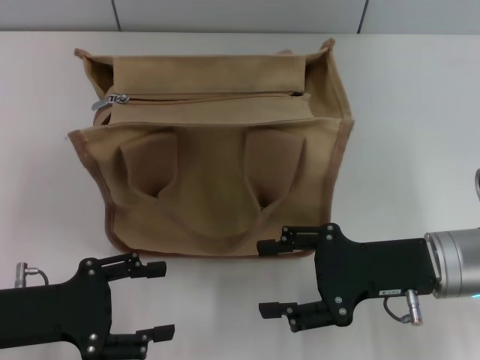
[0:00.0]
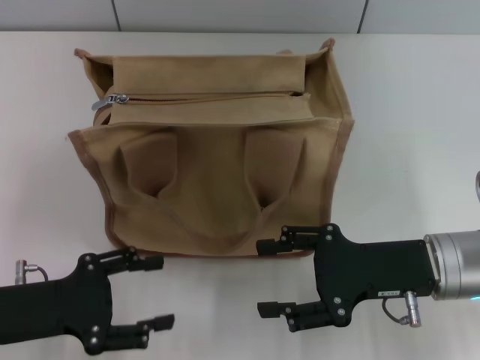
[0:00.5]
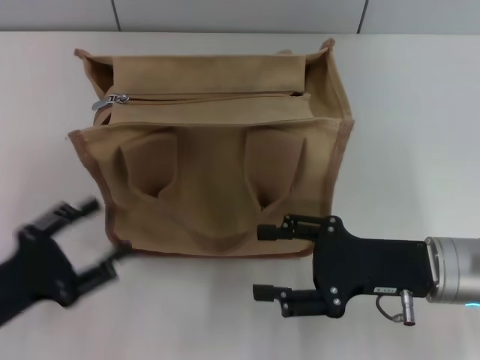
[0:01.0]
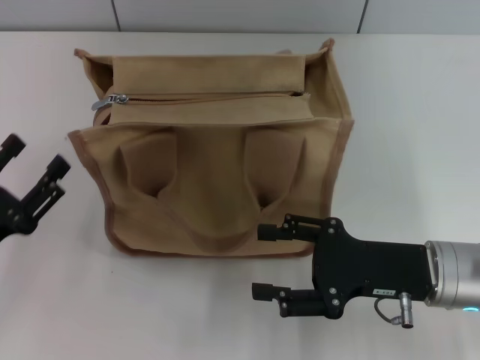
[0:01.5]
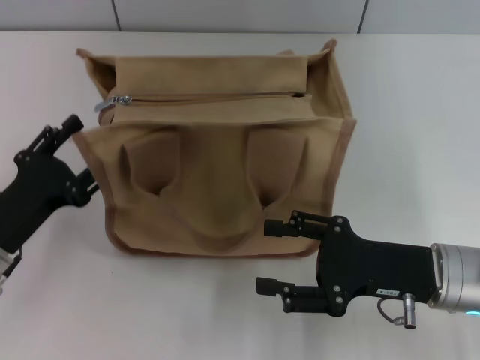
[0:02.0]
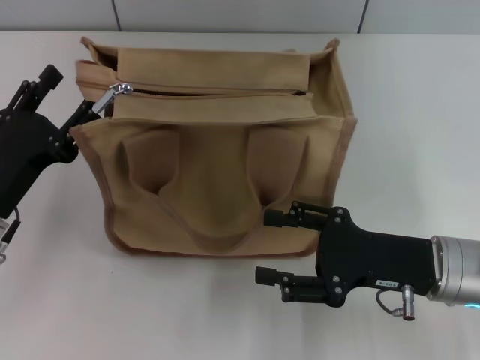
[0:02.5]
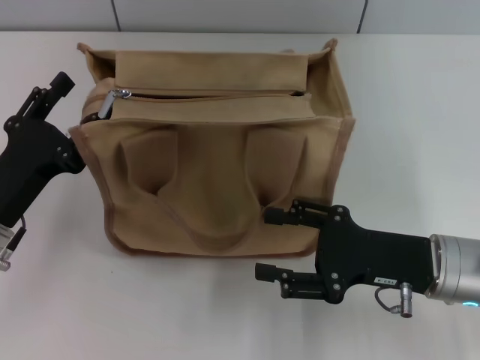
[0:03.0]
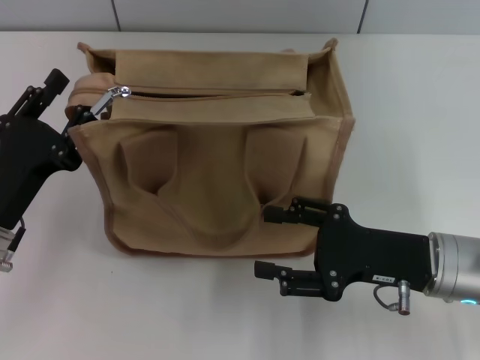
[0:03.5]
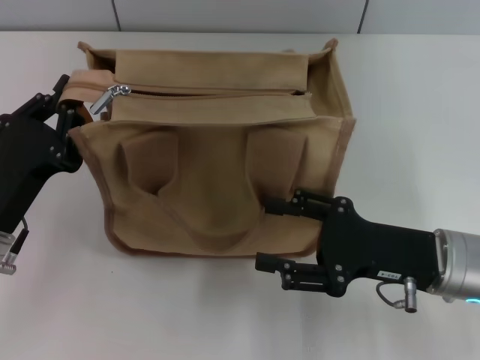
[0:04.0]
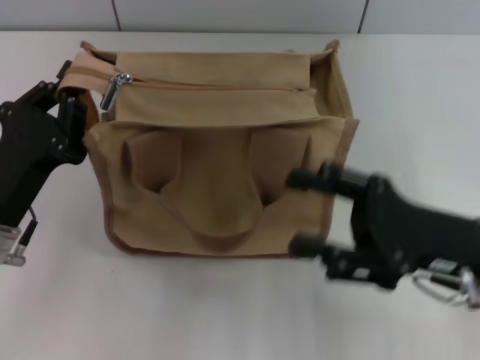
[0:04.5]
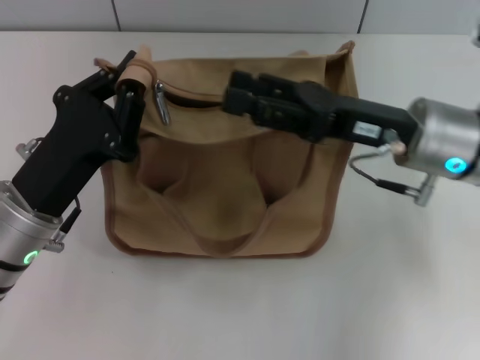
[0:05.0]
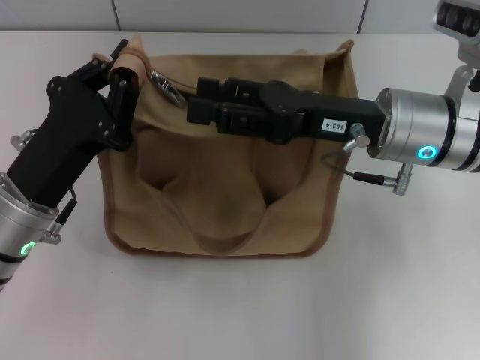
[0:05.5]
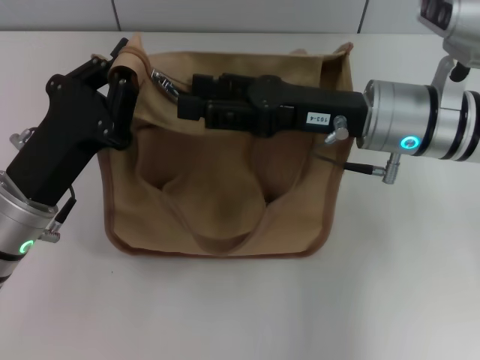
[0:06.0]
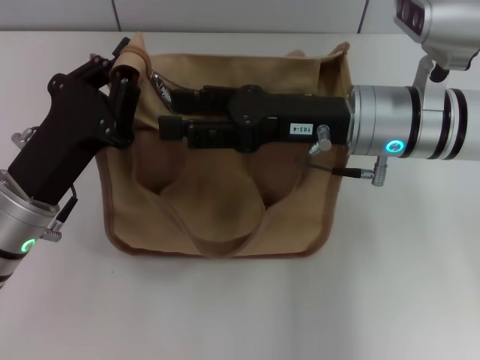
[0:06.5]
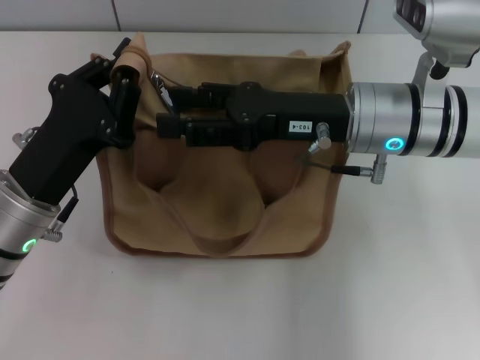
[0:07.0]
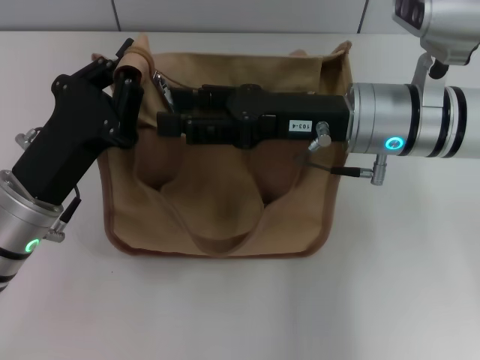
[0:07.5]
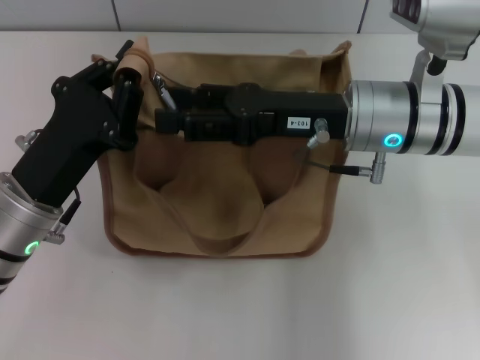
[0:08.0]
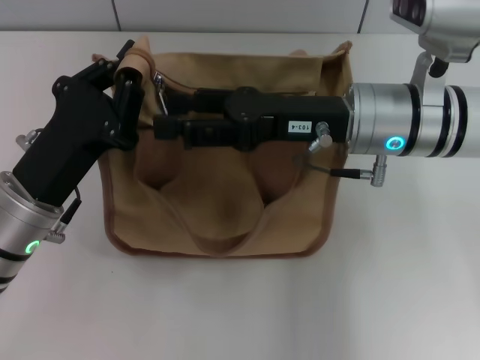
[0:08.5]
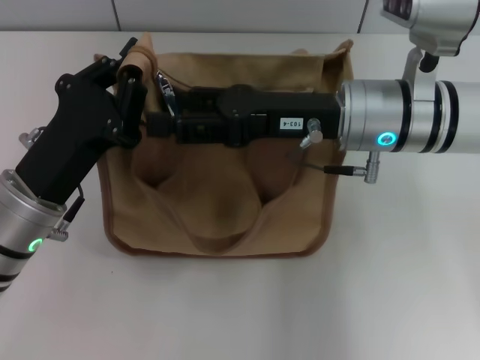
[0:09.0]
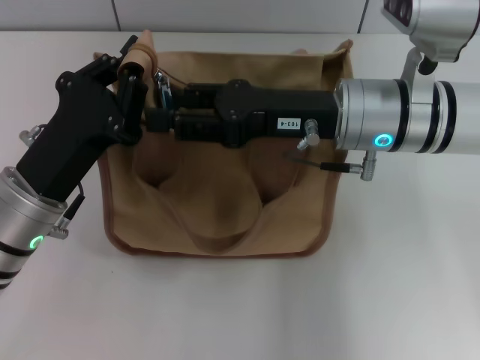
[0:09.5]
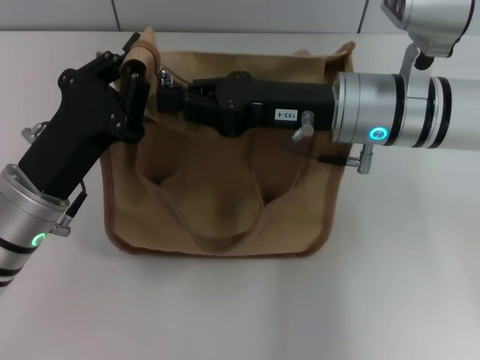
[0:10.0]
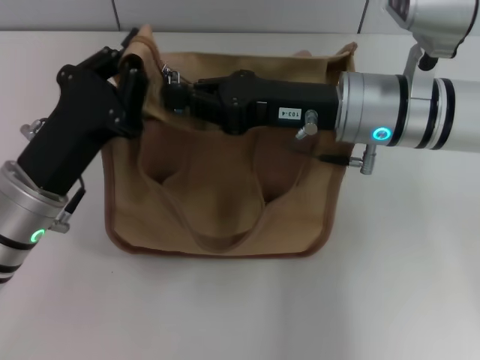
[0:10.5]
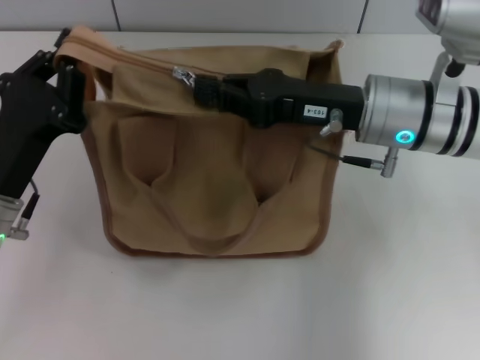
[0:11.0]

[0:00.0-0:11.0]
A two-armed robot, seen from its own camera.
0:02.0 to 0:03.5: The grippers move only a little.
0:03.5 to 0:05.5: The left gripper changes place by about 5 cm, and closes its fingers, while the right gripper shifts approximately 15 cm upward, forward and to the left.
0:05.5 to 0:07.5: The grippers move only a little.
0:07.5 to 0:09.0: Both grippers stay put.
0:09.0 to 0:11.0: The right gripper closes.

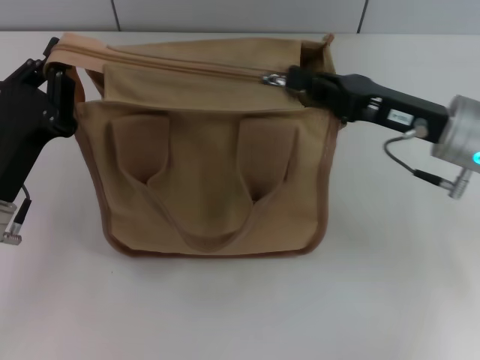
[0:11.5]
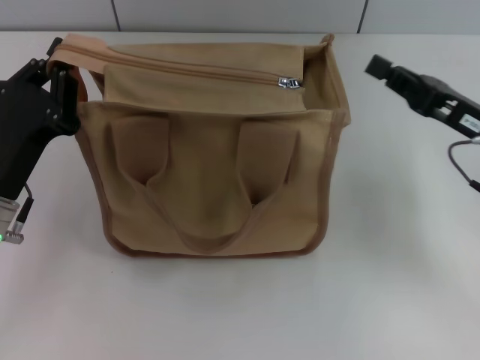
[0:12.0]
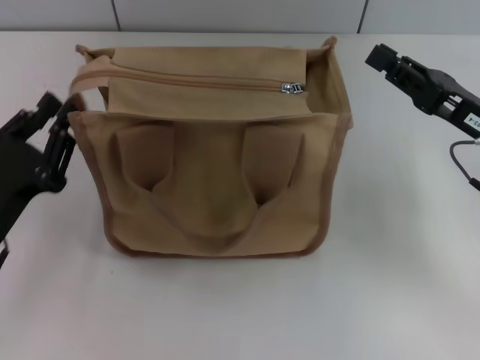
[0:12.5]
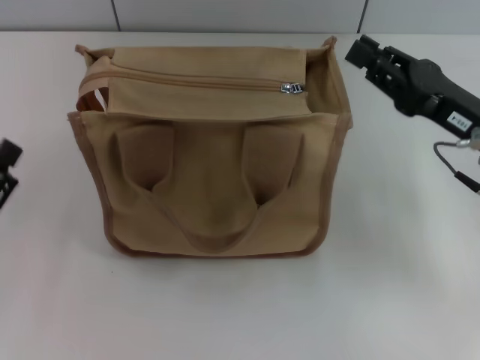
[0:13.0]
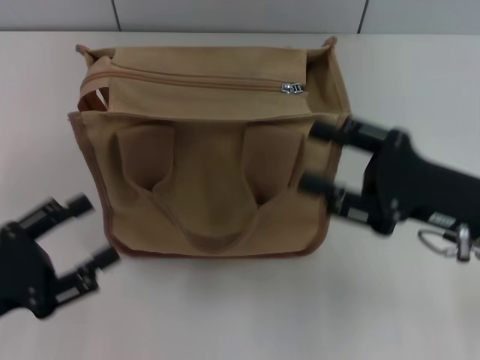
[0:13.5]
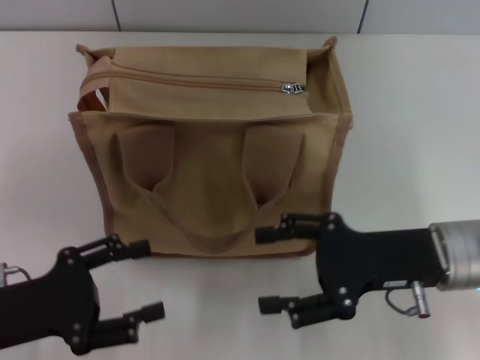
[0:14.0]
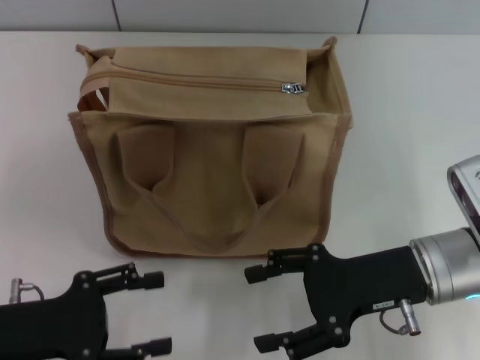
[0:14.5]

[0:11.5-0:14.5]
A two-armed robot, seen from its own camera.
0:11.5 to 0:13.0: The left gripper moves backward and to the left, about 10 cm, and opens its fingers.
0:13.0 to 0:14.5: The right gripper moves to the left, about 5 cm, and opens its fingers.

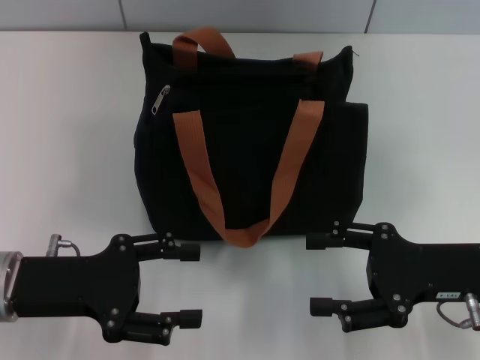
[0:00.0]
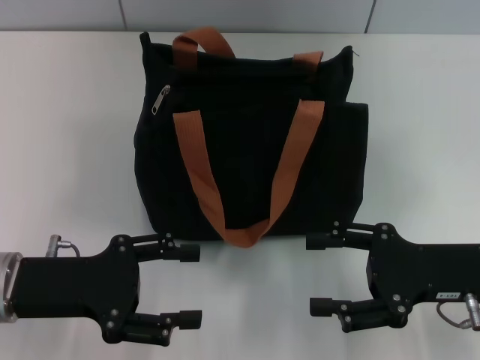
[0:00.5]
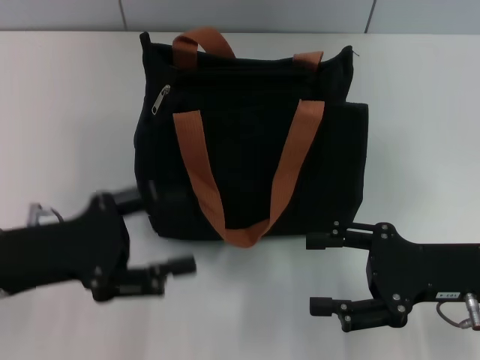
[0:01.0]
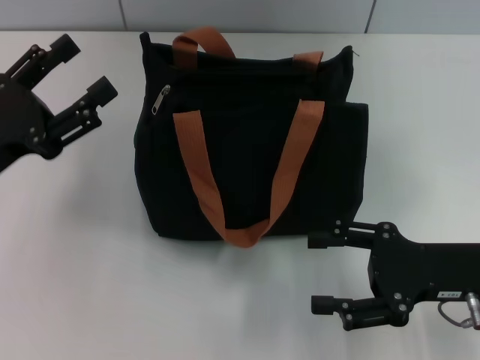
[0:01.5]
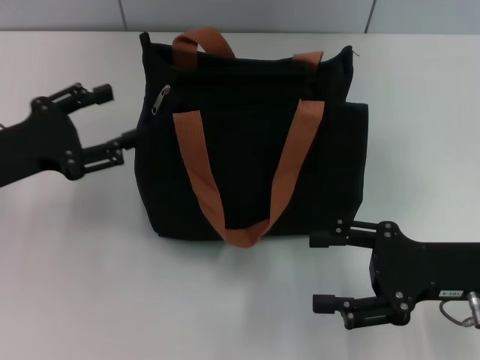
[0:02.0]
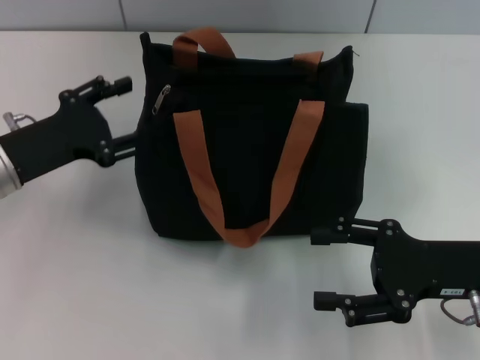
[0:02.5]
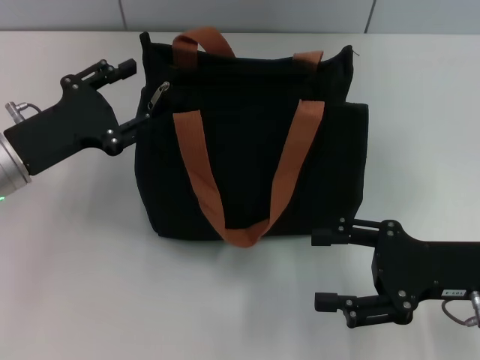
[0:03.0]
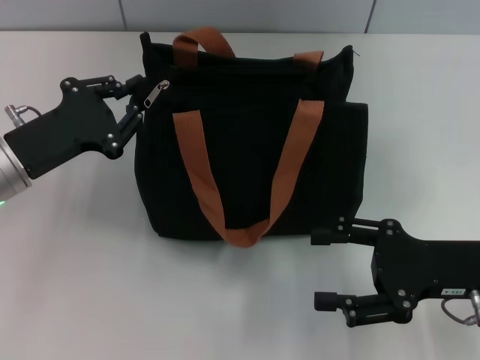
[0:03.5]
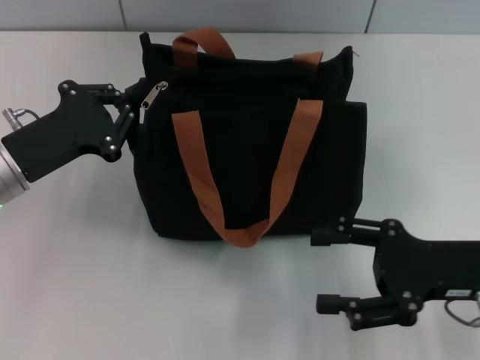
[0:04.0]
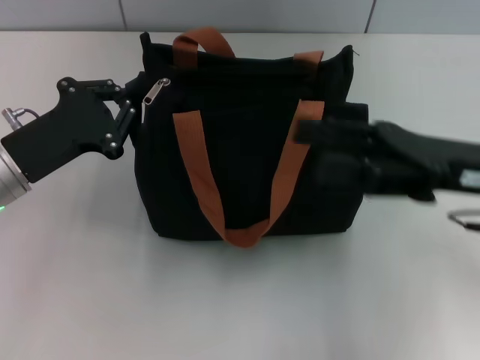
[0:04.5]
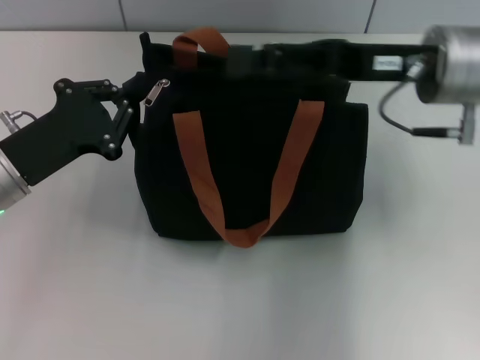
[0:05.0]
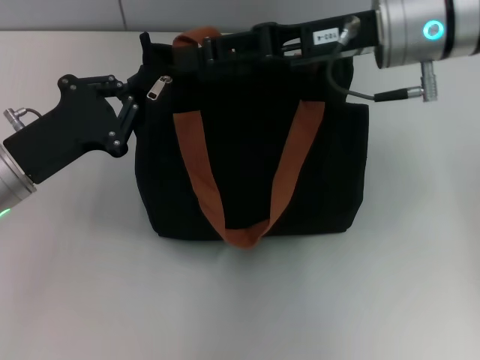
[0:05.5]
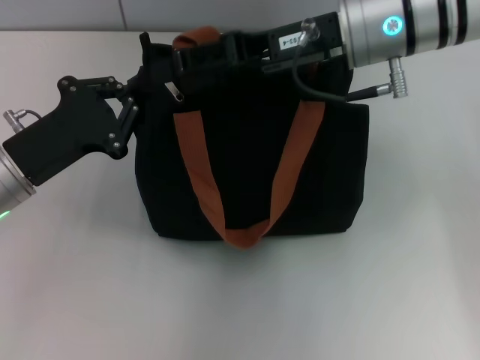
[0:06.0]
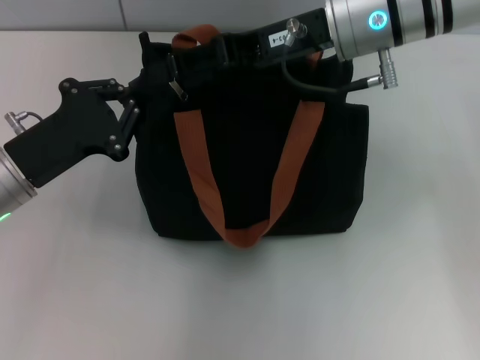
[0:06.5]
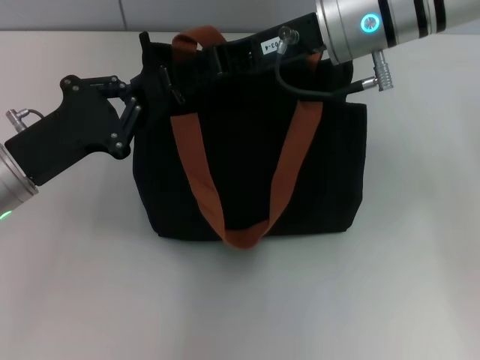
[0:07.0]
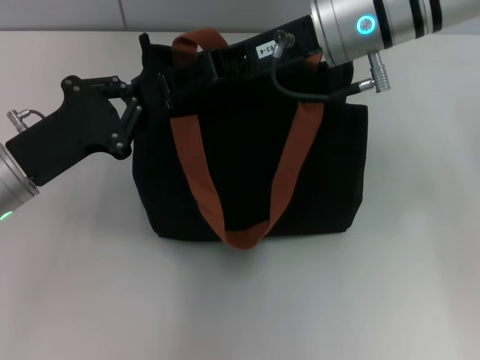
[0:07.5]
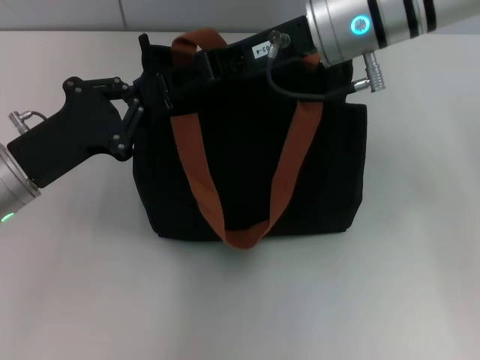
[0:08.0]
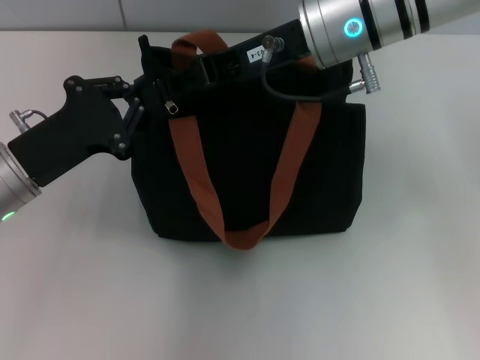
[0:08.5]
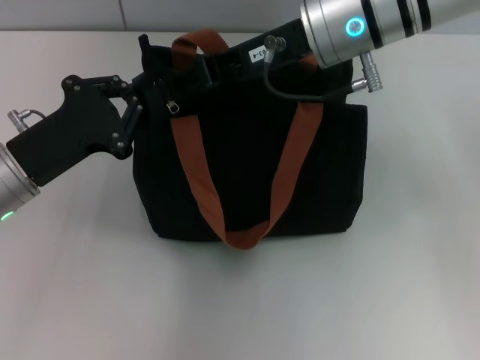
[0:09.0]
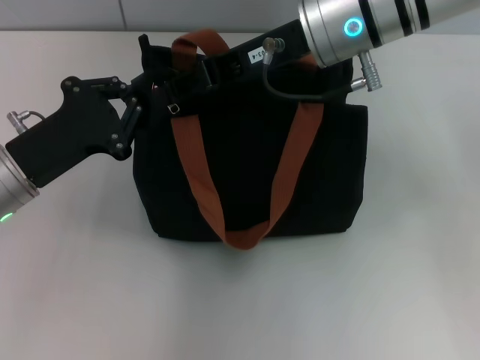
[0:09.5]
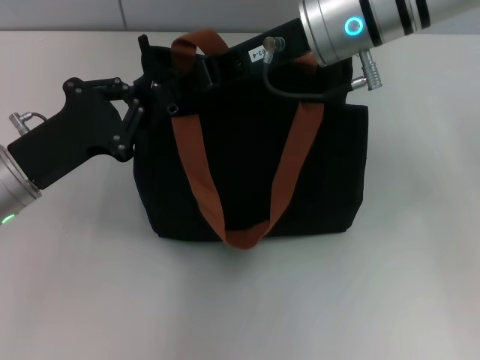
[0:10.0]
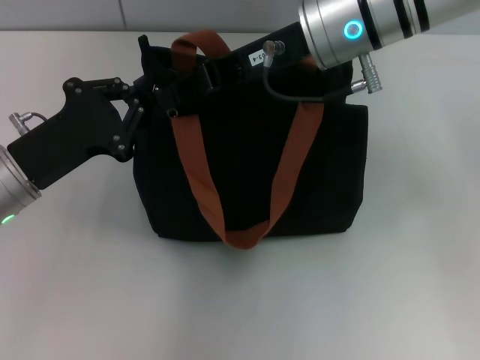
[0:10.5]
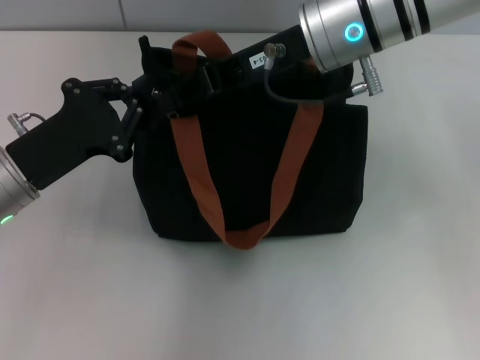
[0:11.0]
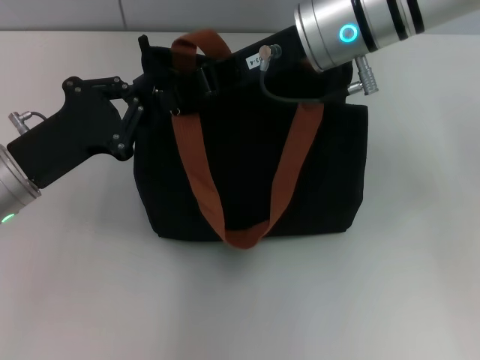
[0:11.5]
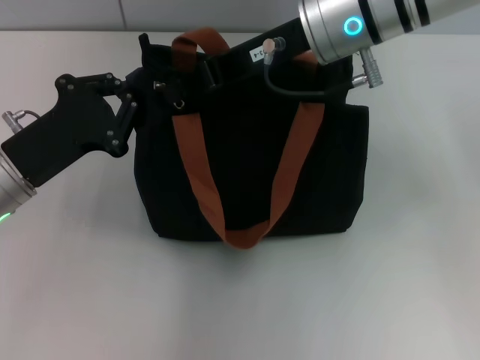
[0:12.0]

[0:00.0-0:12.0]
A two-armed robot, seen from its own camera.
0:00.0 to 0:02.0: The left gripper moves forward, approximately 5 cm.
0:02.0 to 0:04.0: The left gripper closes its fingers.
0:04.0 to 0:06.0: The right gripper travels forward, to the left and upward by some 25 cm.
0:06.0 to 0:08.0: The grippers make only small movements.
0:08.0 to 0:10.0: The right gripper closes its fingers.
0:10.0 to 0:12.0: Both grippers stay put.
